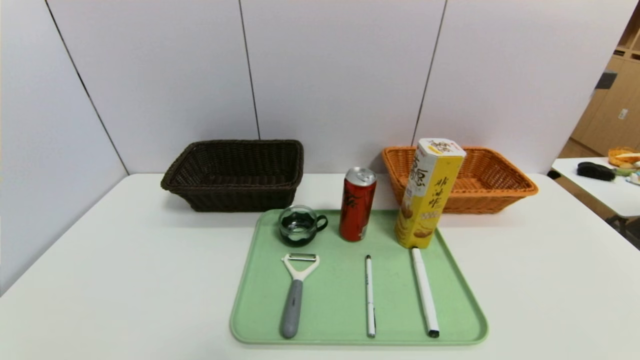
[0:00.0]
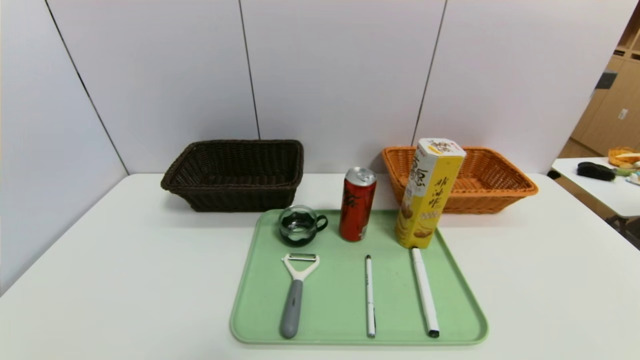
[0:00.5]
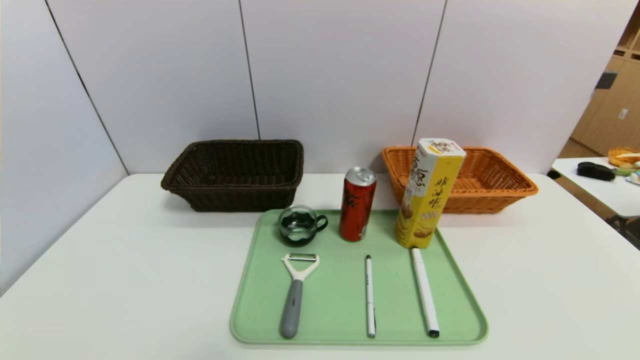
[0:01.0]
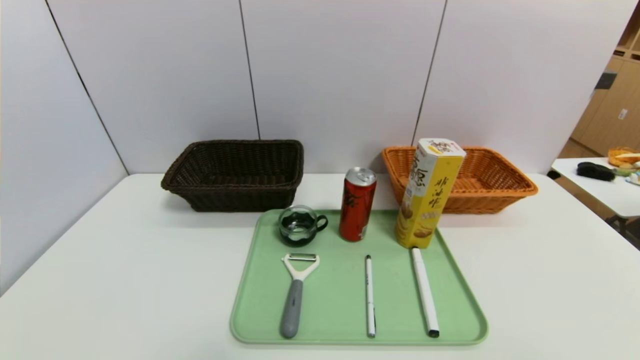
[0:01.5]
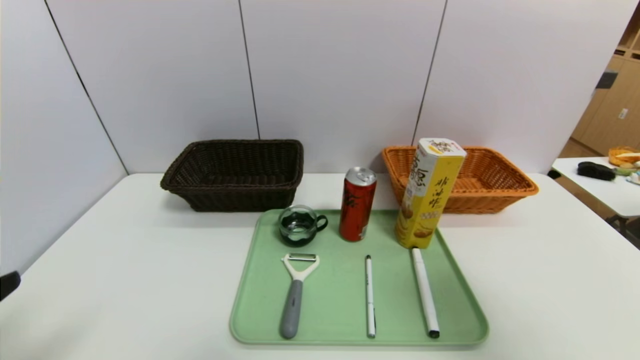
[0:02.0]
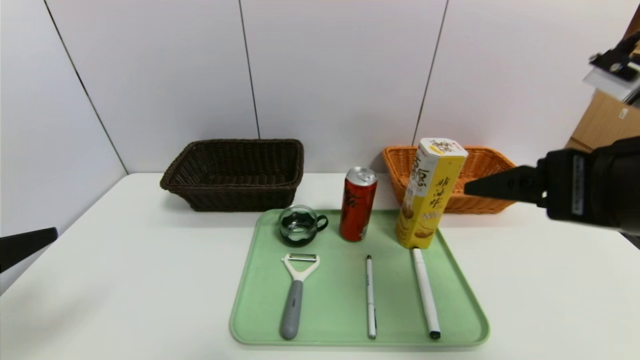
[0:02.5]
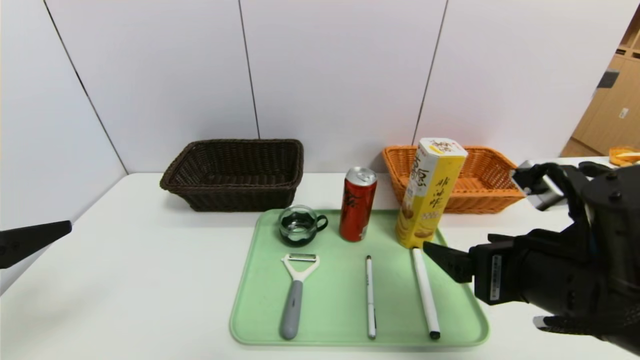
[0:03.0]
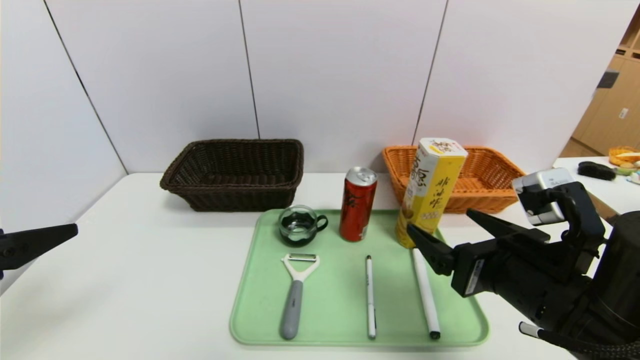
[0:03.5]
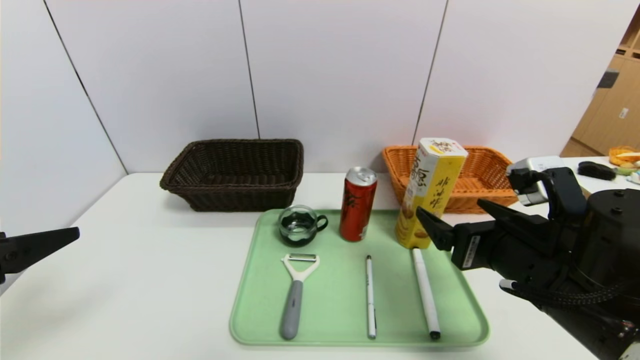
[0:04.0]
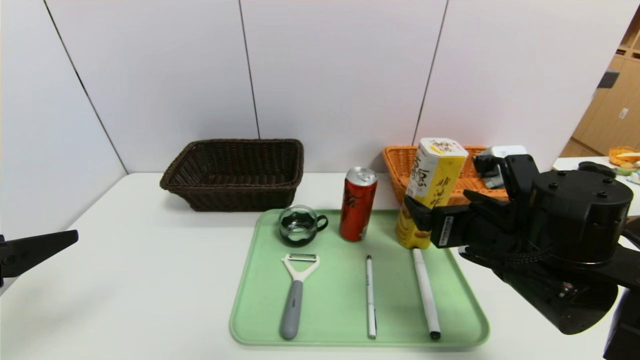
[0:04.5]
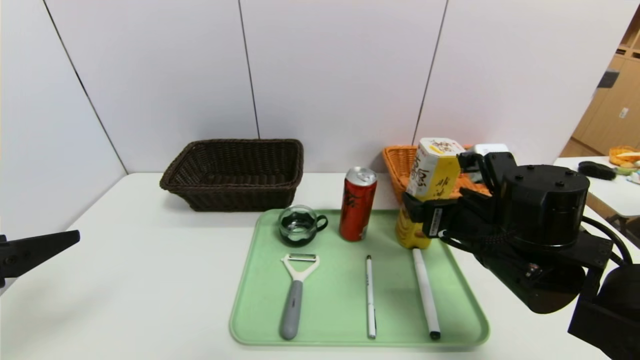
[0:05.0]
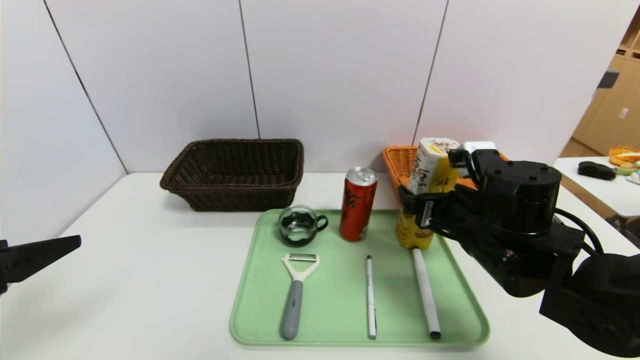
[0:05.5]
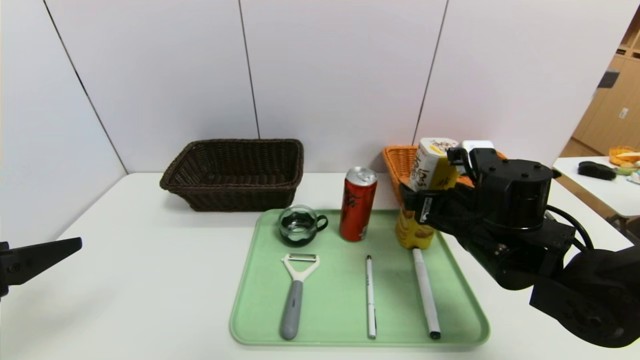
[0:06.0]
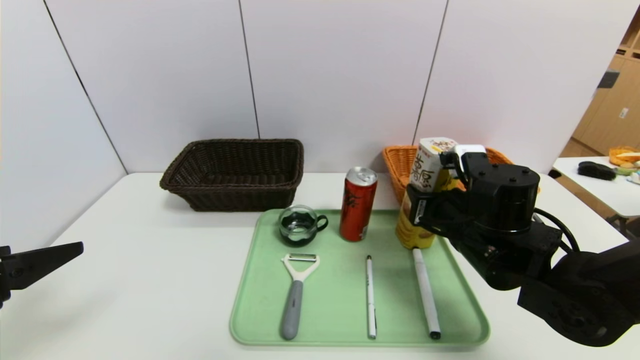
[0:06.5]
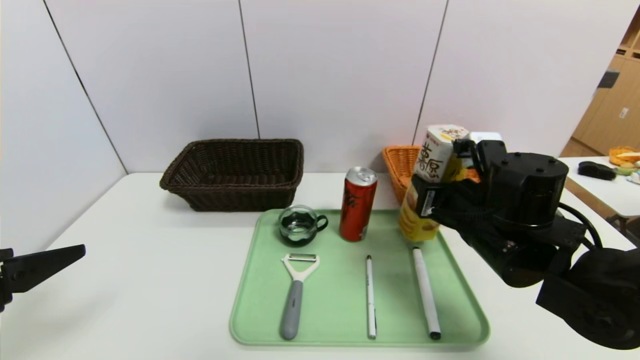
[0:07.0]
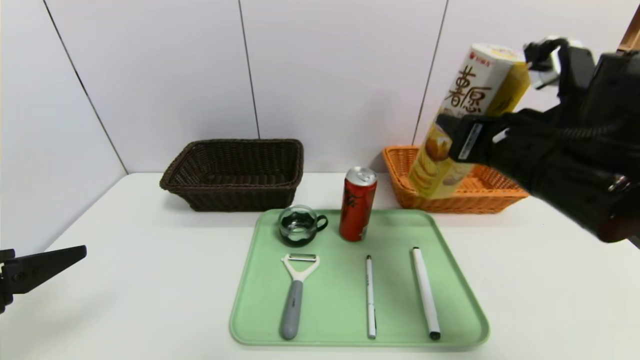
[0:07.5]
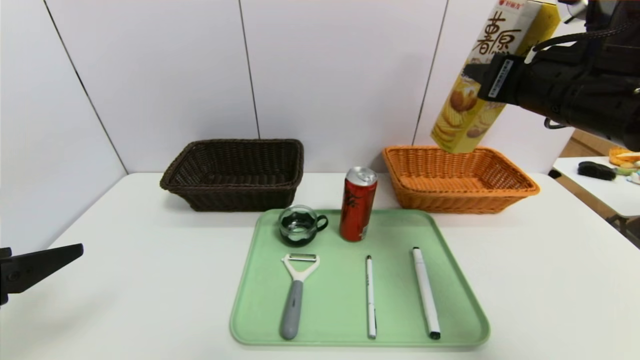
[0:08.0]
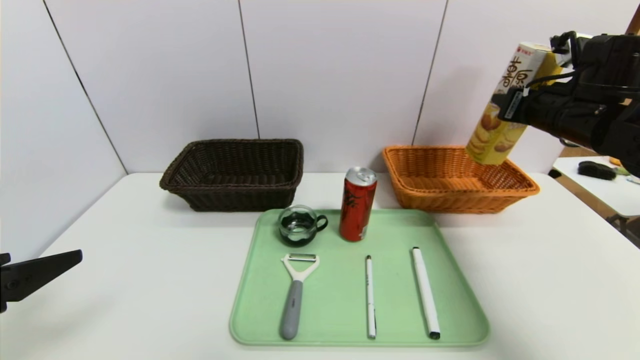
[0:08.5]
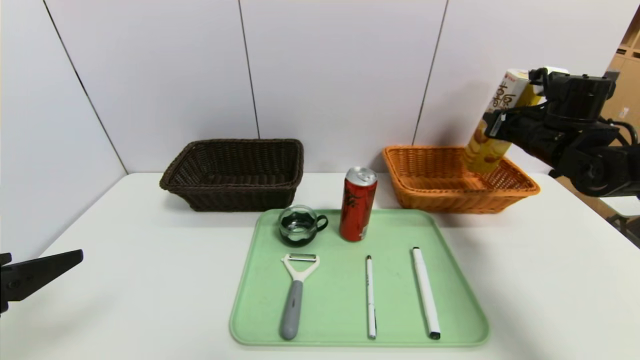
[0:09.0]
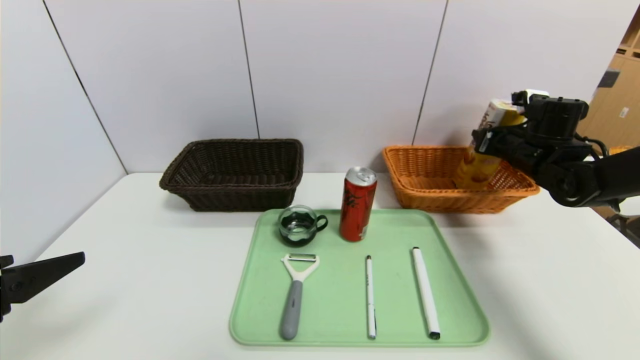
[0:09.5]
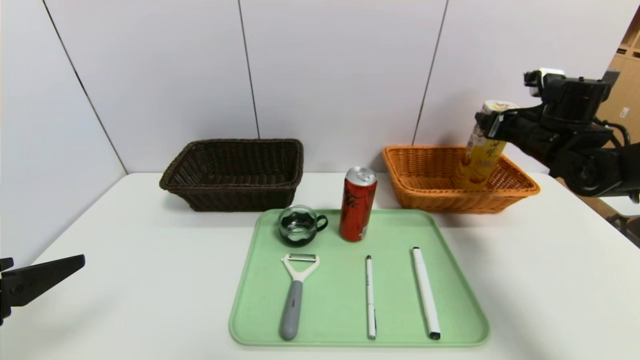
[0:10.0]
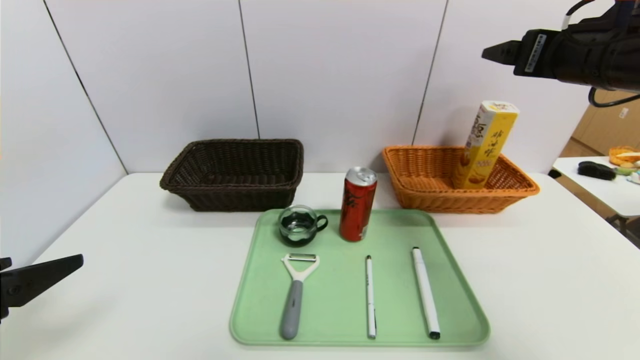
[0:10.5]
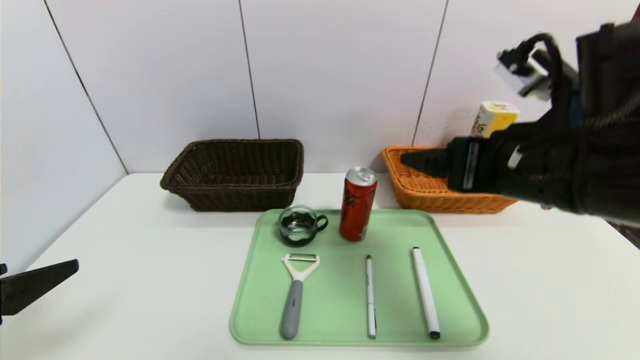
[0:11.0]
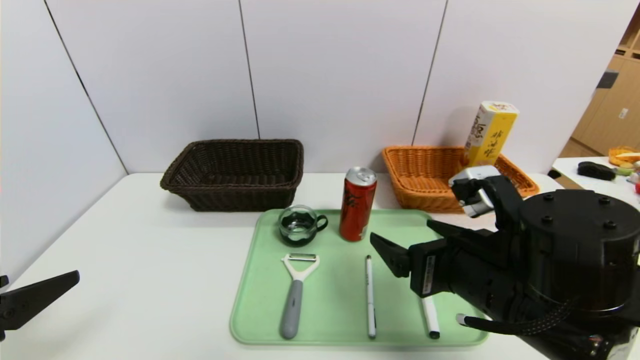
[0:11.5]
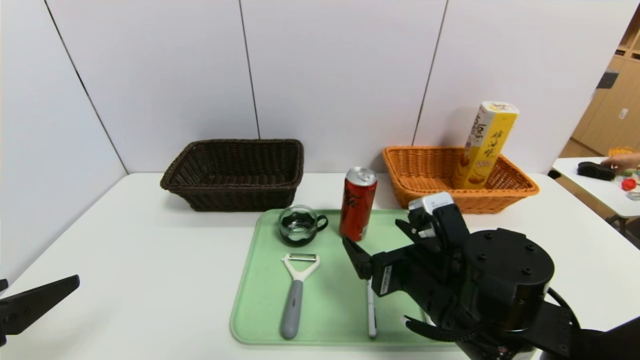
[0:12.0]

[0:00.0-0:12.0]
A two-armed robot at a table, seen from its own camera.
Task of the whole recording: place the food in the right basket with the right gripper, and place the non food items in the left basket with the left gripper.
Step, 0:00.0 to 0:10.5: Grasp the potato chips and put it in the right basket.
0:00.0 to 0:02.0: The right gripper travels upward and forward by some 30 cm, while the left gripper is displaced upward by roughly 20 cm.
0:02.0 to 0:04.0: The right gripper travels downward, to the left and forward by roughly 20 cm. The left gripper moves forward, about 5 cm.
0:04.0 to 0:06.0: The right gripper moves forward, roughly 10 cm.
0:06.0 to 0:08.0: The right gripper shifts about 15 cm upward, and closes up.
0:08.0 to 0:10.0: The right gripper shifts about 20 cm forward, to the right and downward, and opens its fingers.
0:10.0 to 0:12.0: The right gripper is displaced to the left, backward and downward by approximately 30 cm.

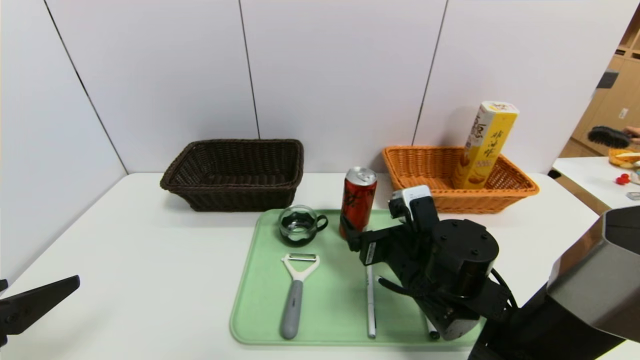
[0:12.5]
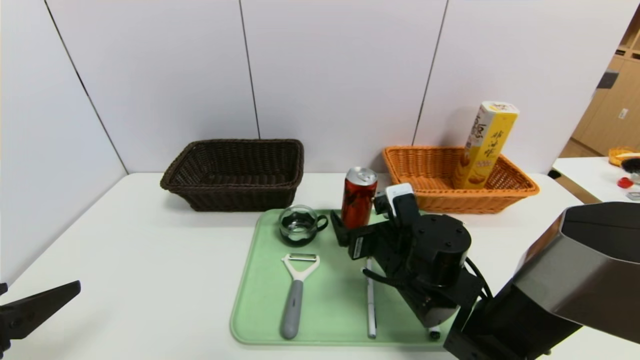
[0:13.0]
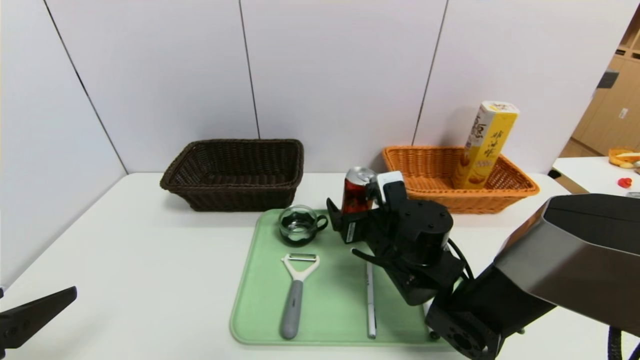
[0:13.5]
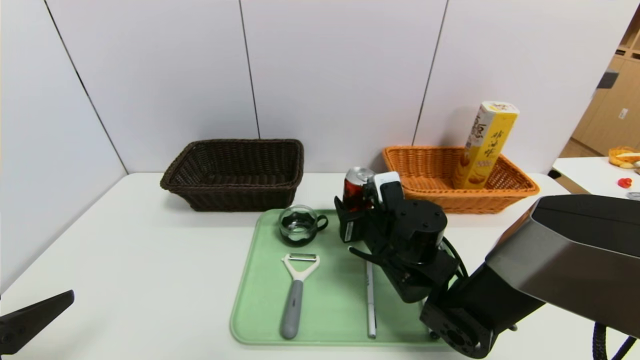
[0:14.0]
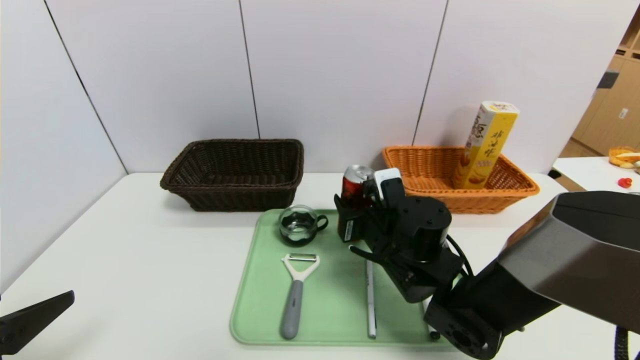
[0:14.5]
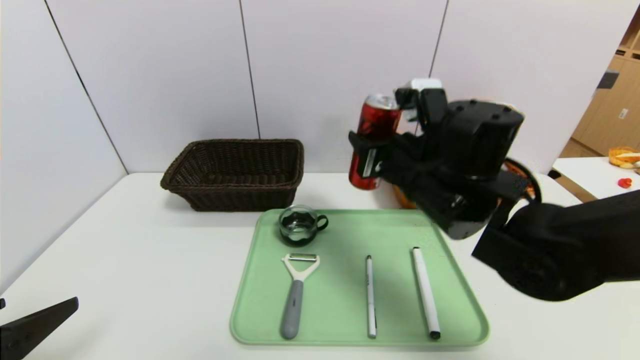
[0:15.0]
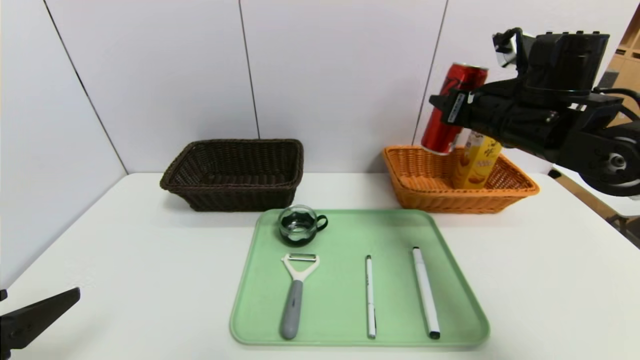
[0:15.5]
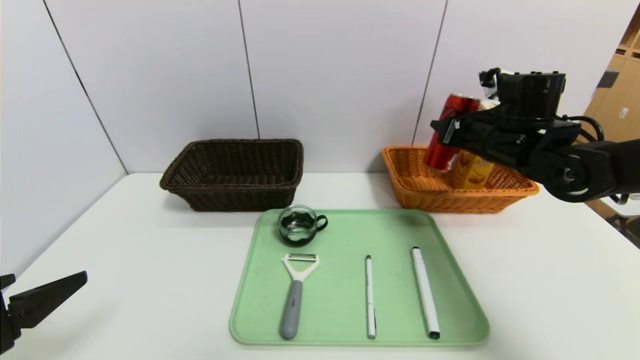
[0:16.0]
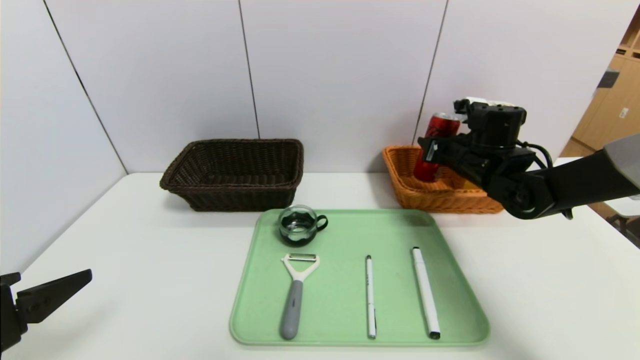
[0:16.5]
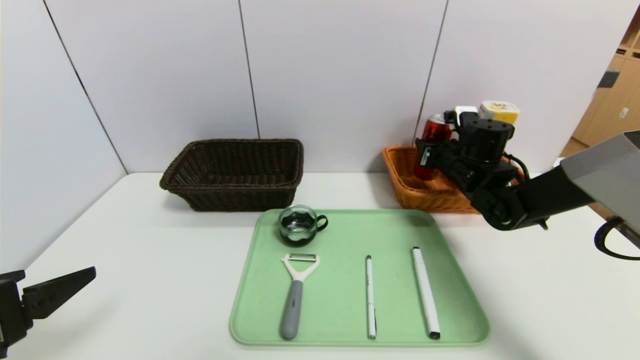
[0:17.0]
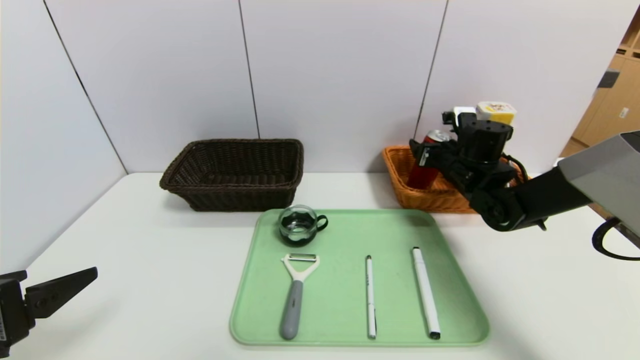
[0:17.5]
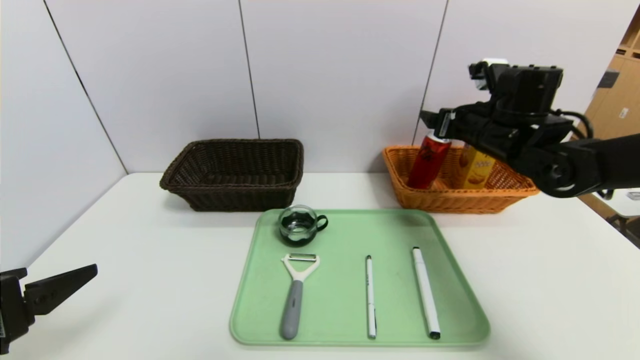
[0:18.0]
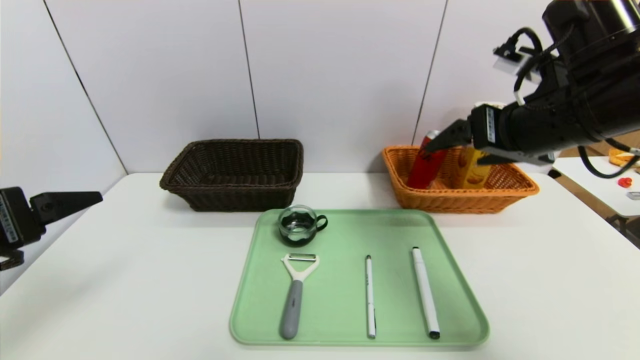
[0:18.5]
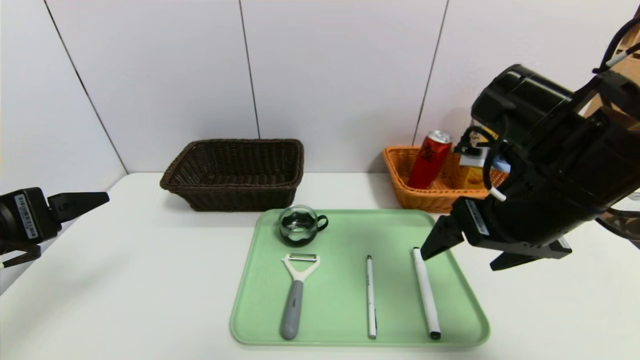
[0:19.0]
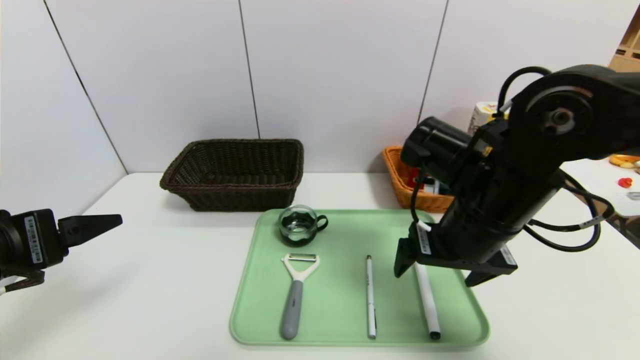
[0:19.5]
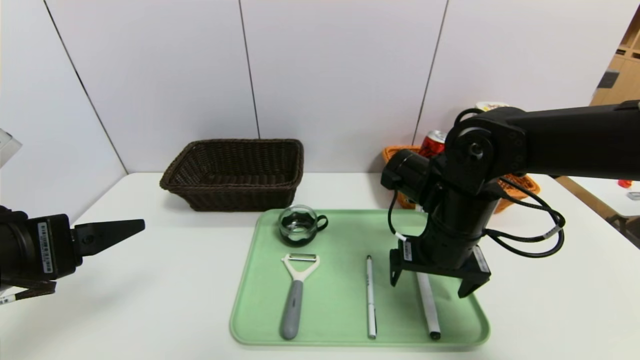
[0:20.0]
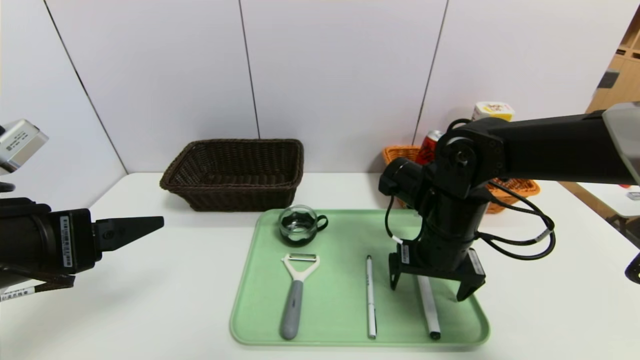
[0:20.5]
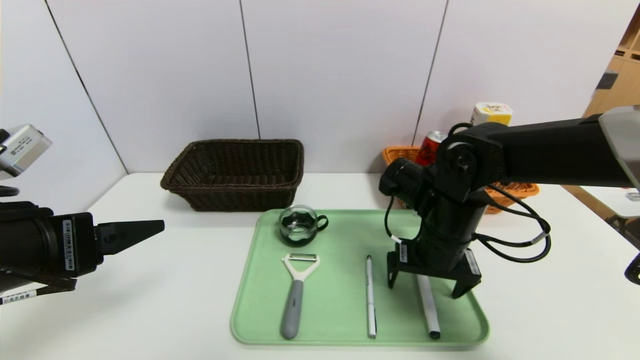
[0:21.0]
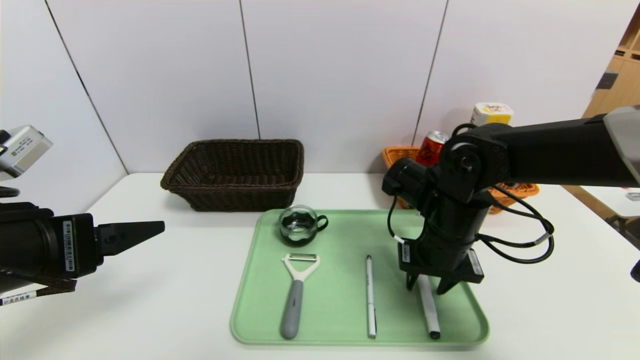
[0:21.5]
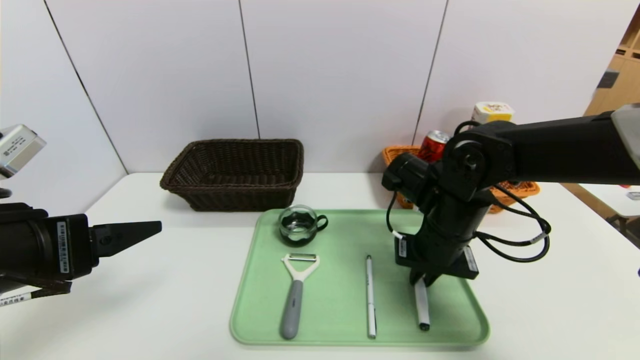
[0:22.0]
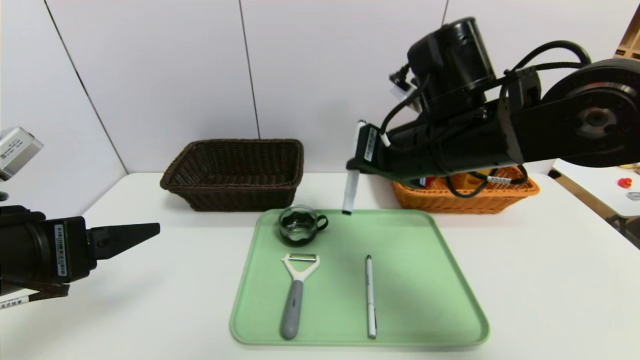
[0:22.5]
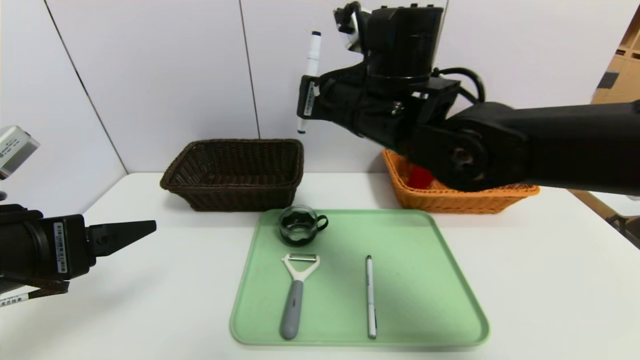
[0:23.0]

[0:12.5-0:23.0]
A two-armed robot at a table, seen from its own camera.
Task of the whole recording: place the food in the right basket with the right gripper, and place the non food items in the left basket with the left gripper.
Step, 0:12.5 to 0:18.0: Grasp the canned cola and put it in the right basket.
0:12.5 to 0:14.5: The right gripper closes up.
0:14.5 to 0:16.5: The right gripper moves to the right, forward and upward, about 20 cm.
0:16.5 to 0:19.0: The right gripper goes approximately 20 cm backward and upward, and opens up; the left gripper goes roughly 5 cm forward.
0:19.0 to 0:21.0: The right gripper goes approximately 15 cm downward and forward.
0:21.0 to 0:23.0: The right gripper shifts approximately 20 cm upward and to the left, and closes up.
